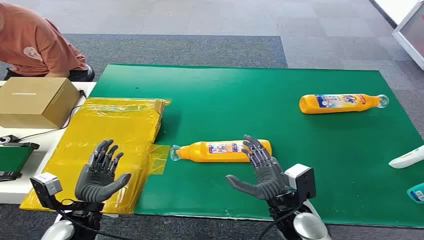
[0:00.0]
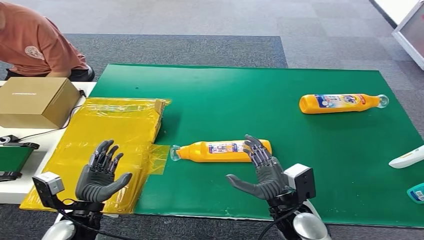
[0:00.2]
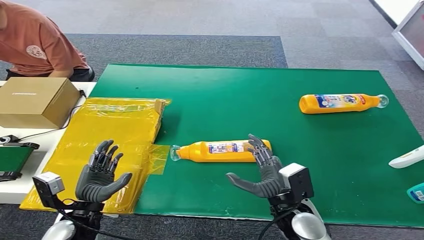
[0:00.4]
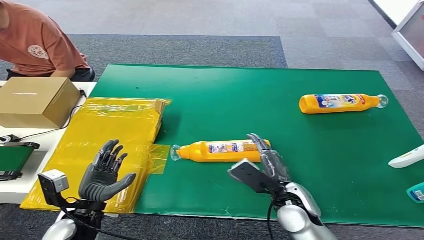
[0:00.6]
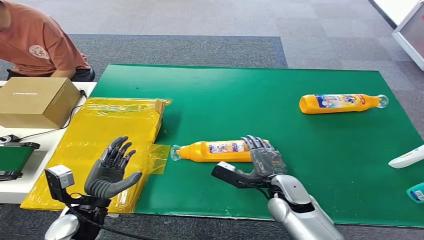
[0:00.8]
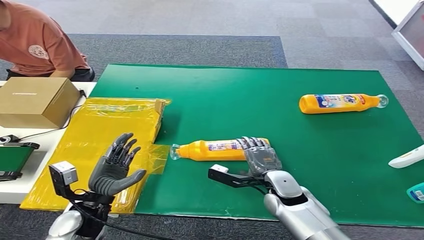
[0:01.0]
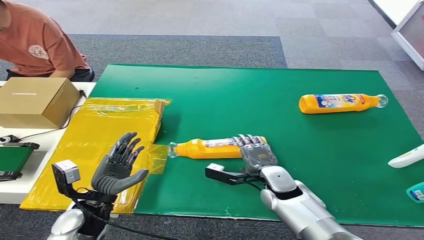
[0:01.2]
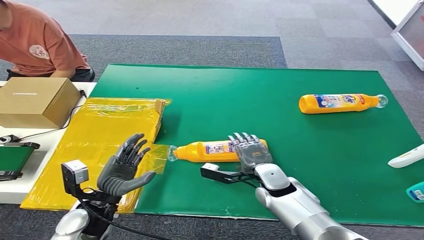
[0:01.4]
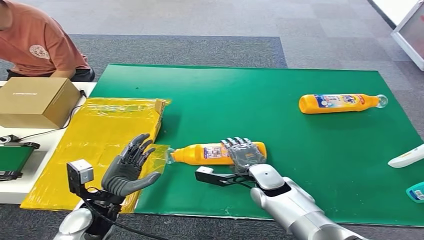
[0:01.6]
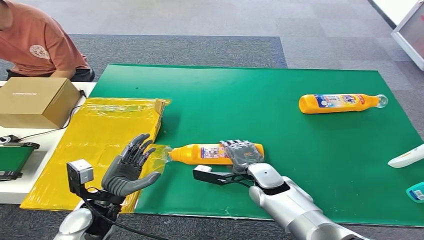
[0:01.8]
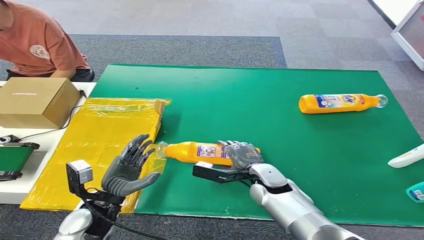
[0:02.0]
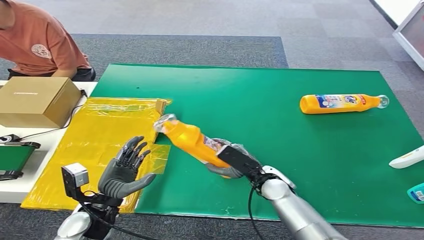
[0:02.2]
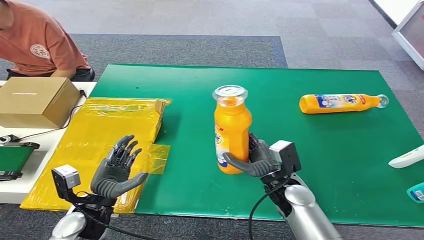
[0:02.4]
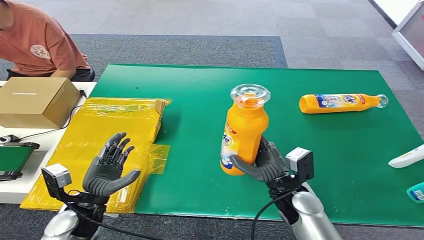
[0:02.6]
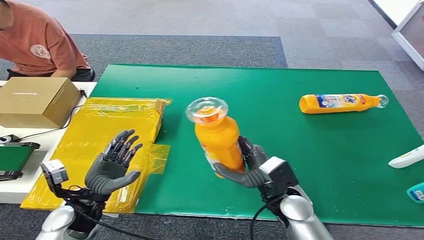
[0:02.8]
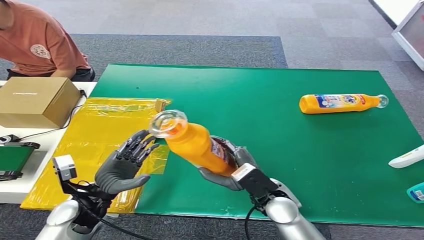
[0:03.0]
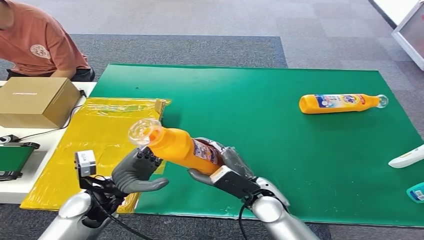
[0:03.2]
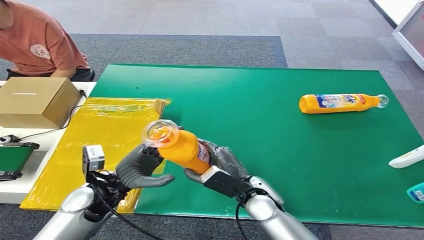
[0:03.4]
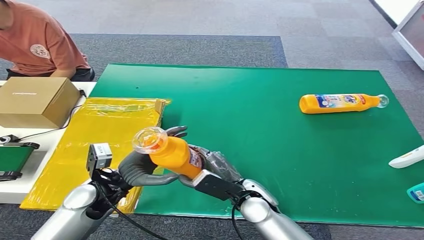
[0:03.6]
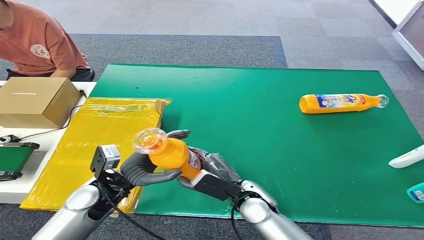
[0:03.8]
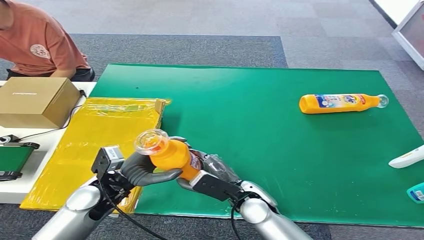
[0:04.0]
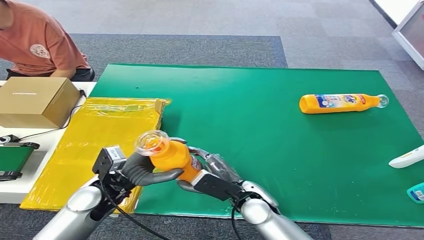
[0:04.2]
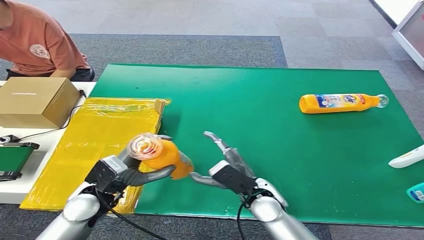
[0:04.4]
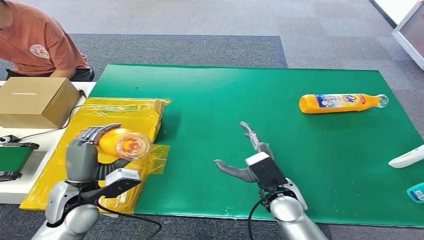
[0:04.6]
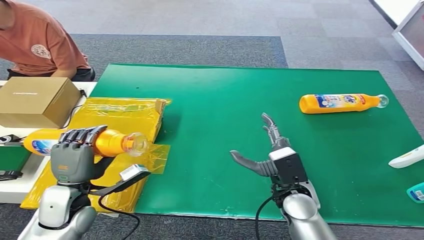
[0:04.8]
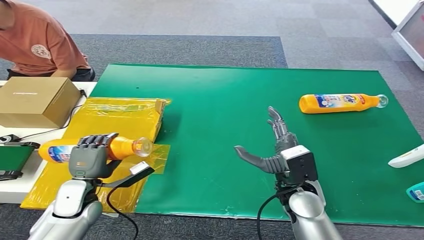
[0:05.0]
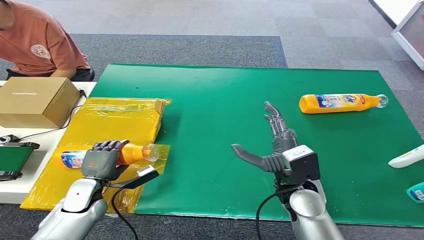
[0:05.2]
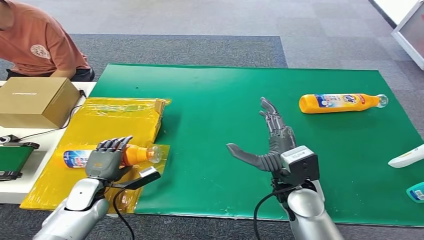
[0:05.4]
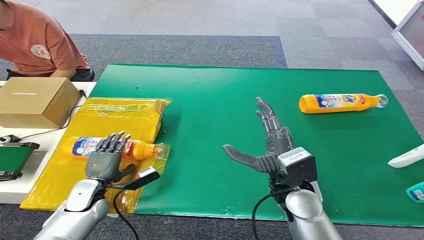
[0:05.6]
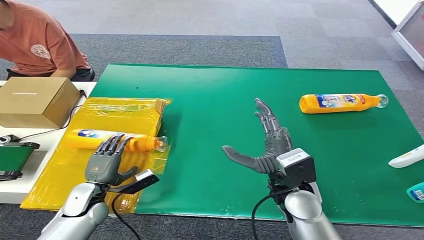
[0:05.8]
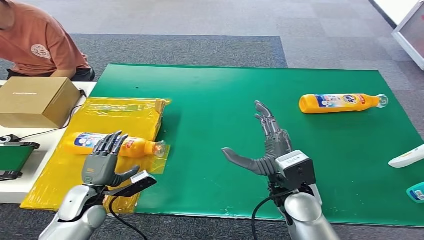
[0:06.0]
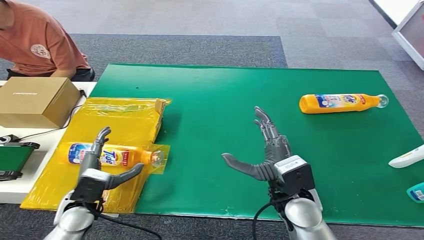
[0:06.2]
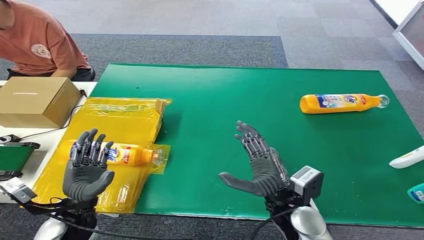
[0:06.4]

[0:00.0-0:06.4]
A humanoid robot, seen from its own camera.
Step, 0:00.0 to 0:02.6: Pick up the bottle from the table.
Step, 0:03.0 to 0:06.4: Turn the bottle to the front side.
0:01.6 to 0:03.2: The right hand moves backward, about 5 cm.
0:03.2 to 0:04.8: The left hand shifts by some 5 cm; the right hand travels to the right by approximately 5 cm.
0:04.8 to 0:06.4: The left hand moves approximately 10 cm downward and comes back.

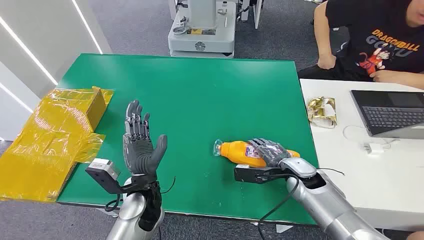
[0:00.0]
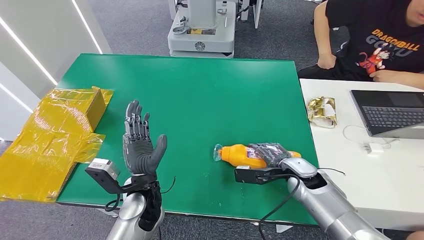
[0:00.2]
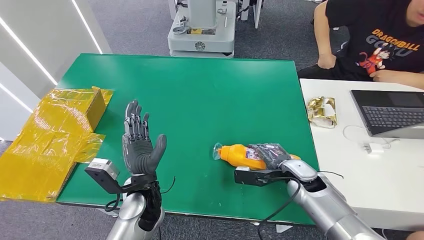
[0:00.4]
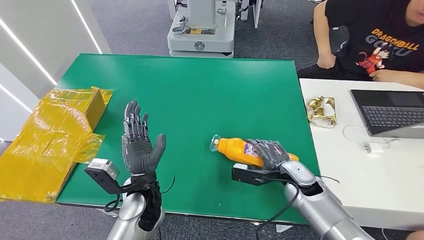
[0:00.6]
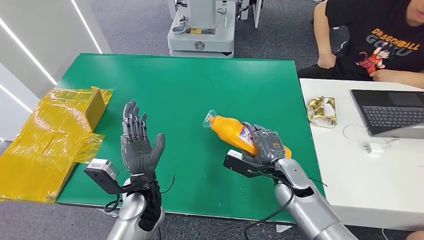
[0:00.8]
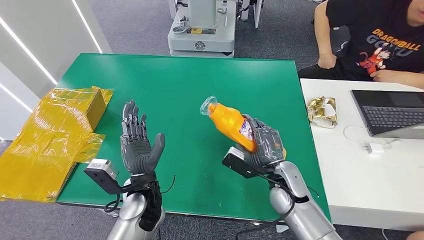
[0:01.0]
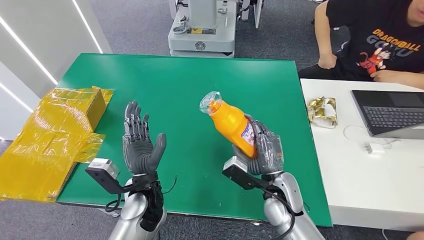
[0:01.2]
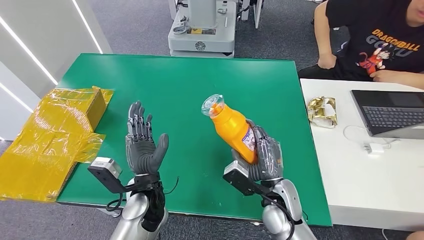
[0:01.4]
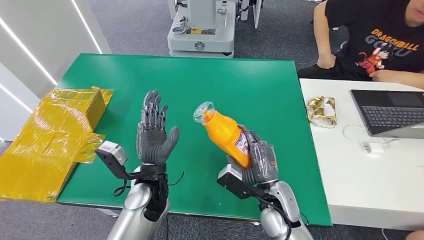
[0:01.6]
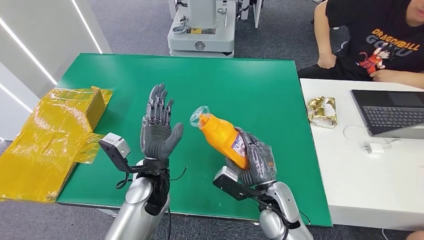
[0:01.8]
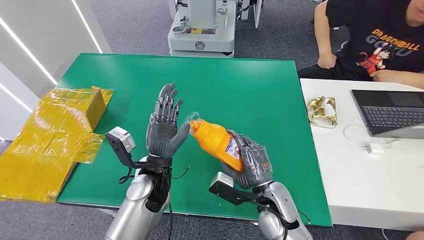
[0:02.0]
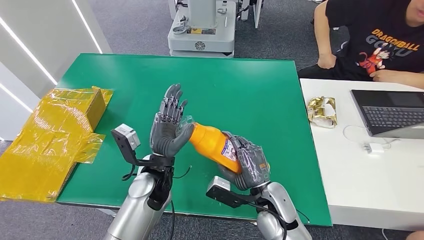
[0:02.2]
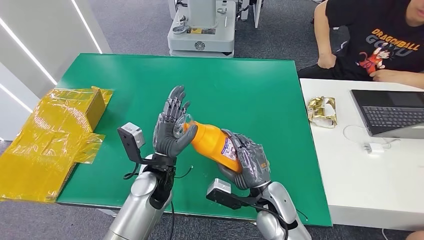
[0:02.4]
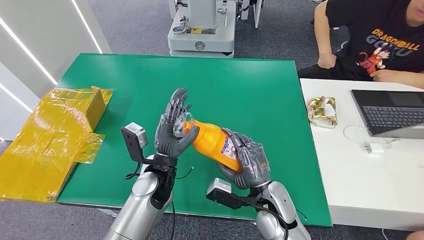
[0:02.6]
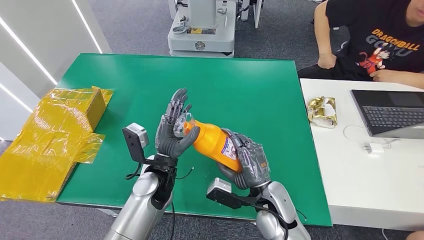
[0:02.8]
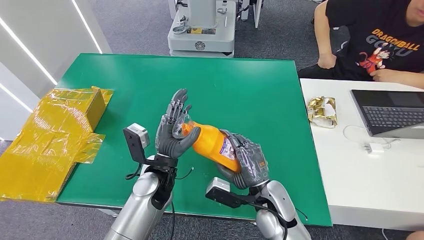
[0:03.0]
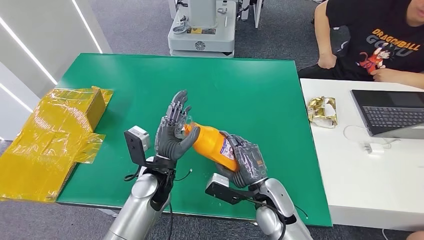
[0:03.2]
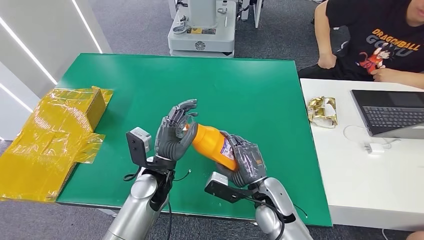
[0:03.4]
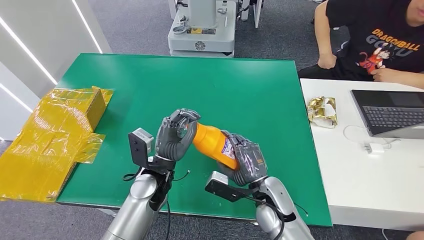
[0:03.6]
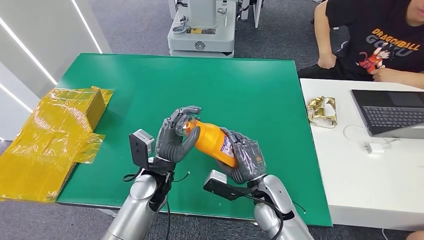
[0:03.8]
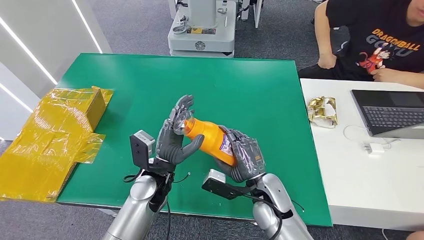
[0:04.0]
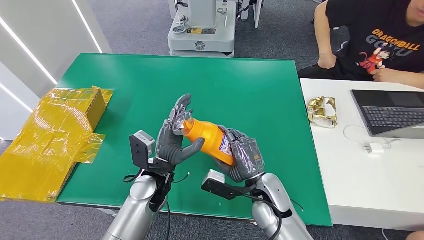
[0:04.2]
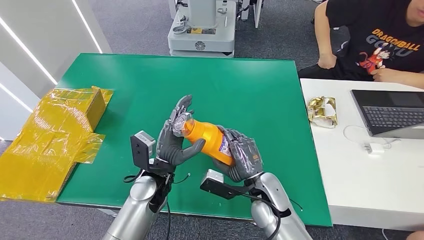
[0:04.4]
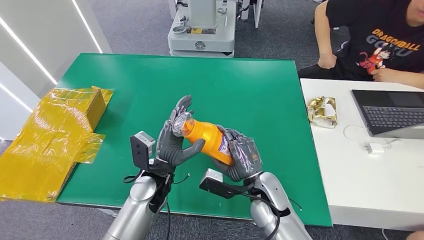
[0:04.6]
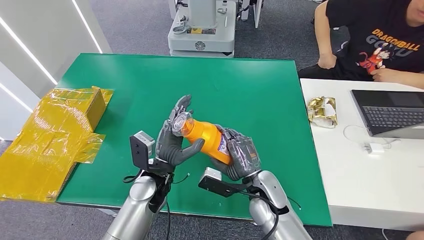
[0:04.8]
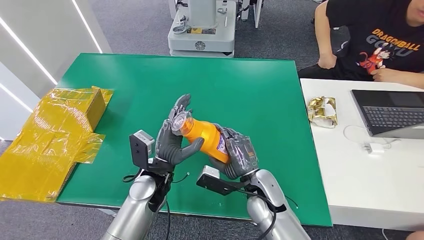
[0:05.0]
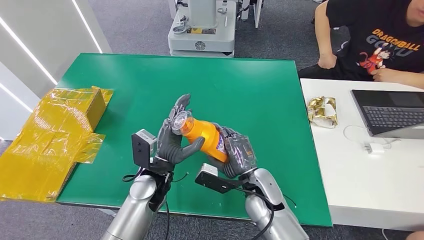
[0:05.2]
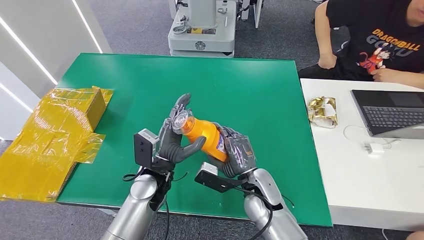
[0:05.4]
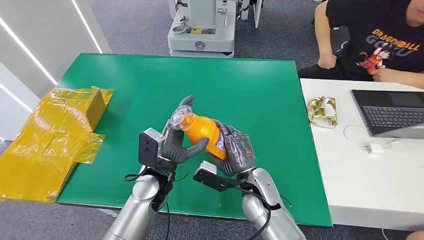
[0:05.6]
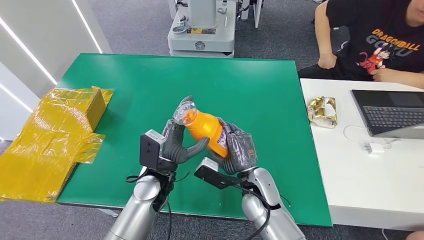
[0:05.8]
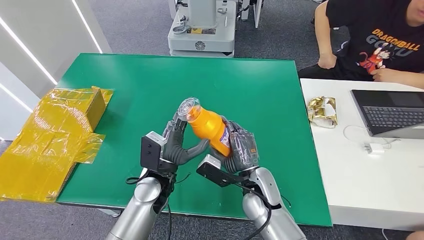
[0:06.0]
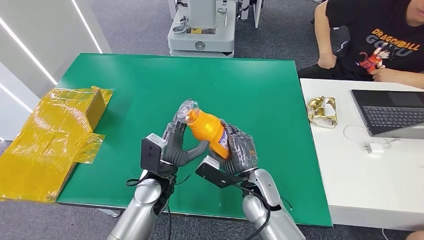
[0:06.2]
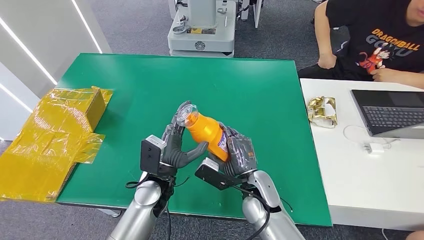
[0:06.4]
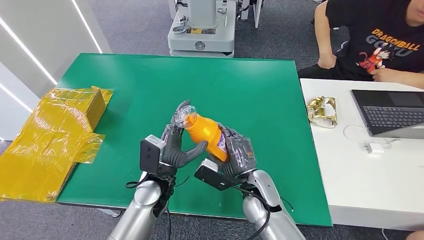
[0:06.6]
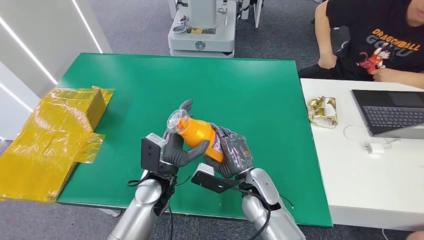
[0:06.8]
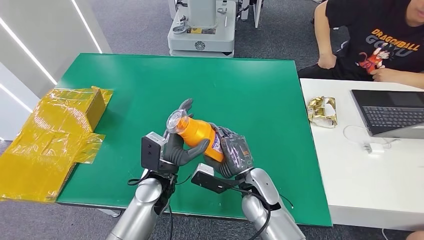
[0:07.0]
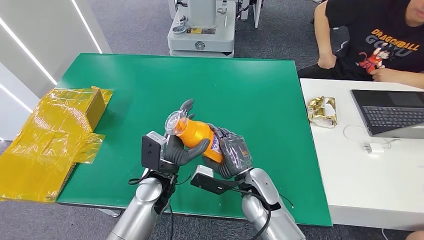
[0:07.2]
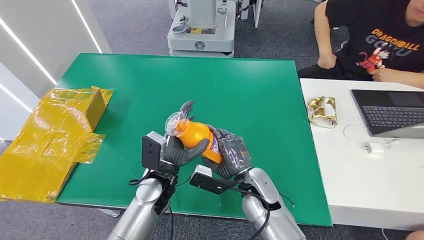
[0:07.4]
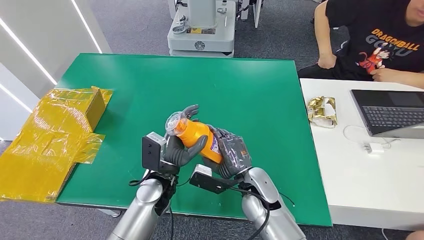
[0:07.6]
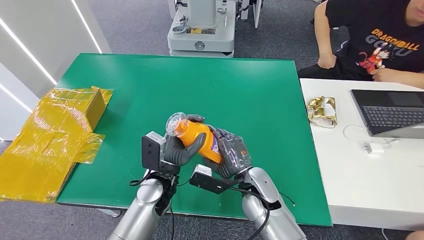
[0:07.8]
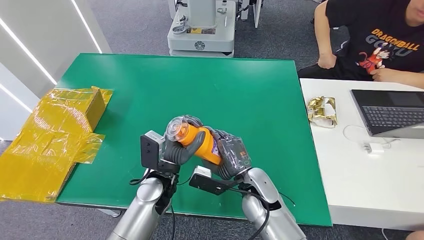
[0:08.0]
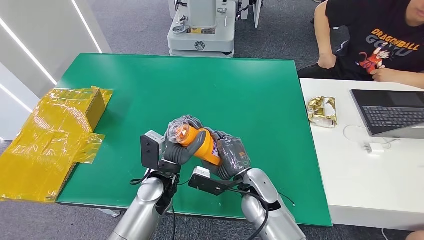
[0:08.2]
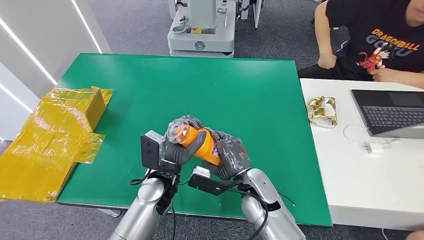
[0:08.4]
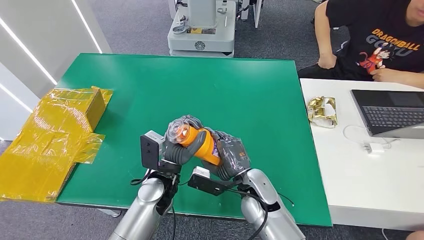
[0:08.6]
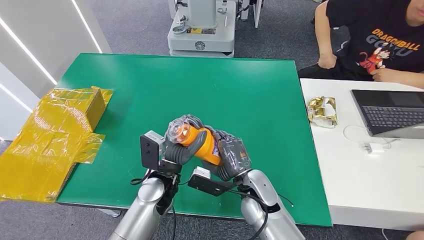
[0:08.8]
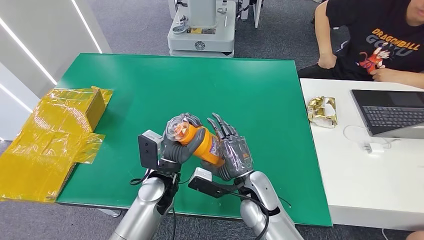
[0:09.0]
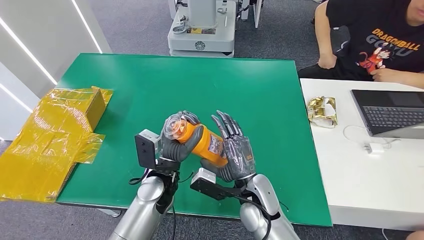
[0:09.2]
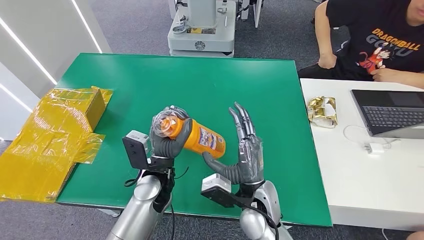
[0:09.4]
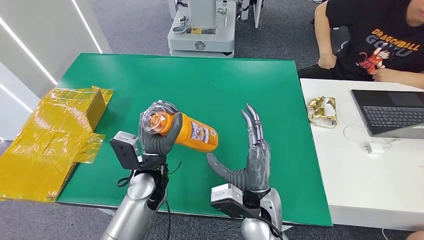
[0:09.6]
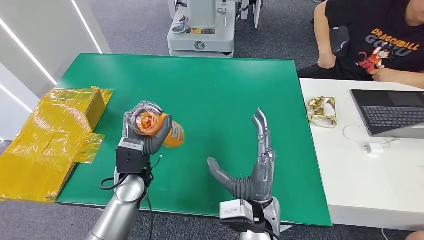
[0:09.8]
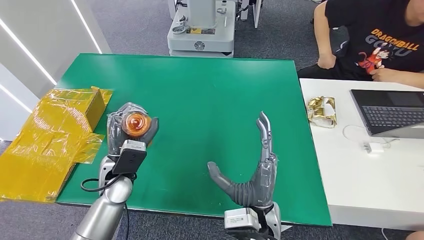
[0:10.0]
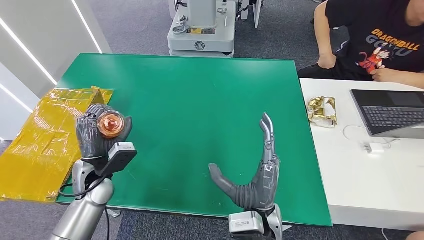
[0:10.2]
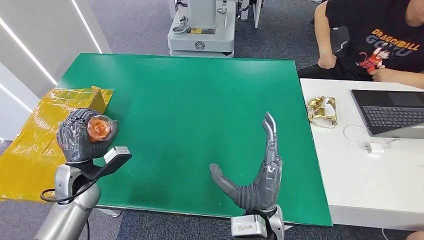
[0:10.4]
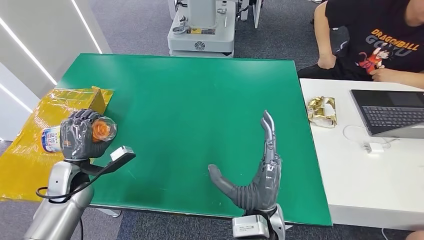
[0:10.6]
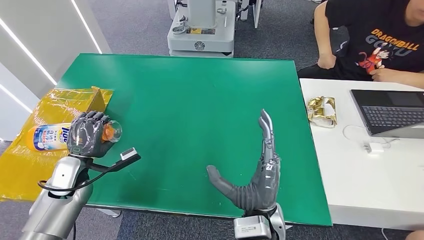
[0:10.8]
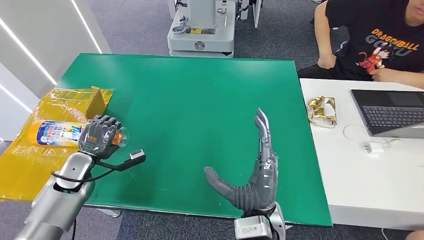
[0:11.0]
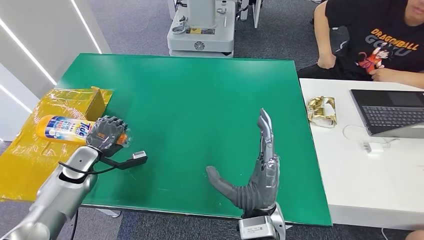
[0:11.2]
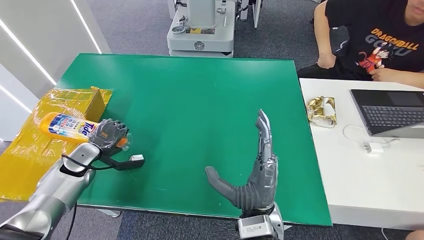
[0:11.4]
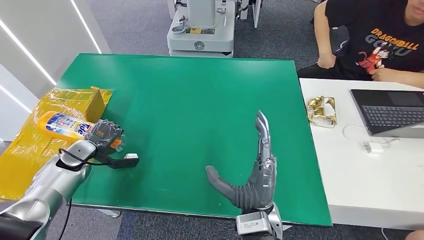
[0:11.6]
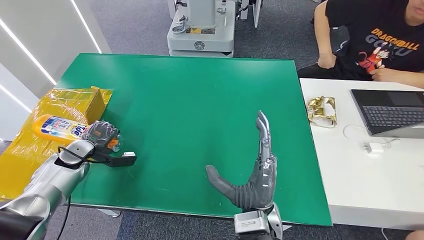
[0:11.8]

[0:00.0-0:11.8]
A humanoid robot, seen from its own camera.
Step, 0:00.0 to 0:03.4: Pick up the bottle from the table.
0:03.0 to 0:07.4: The hands stay close to where they were, moving slightly.
0:07.4 to 0:08.8: Neither hand changes place.
0:08.8 to 0:10.4: The right hand shifts approximately 10 cm backward and upward, while the left hand shifts approximately 20 cm to the left.
0:10.4 to 0:11.8: The left hand goes some 15 cm to the left and forward.
